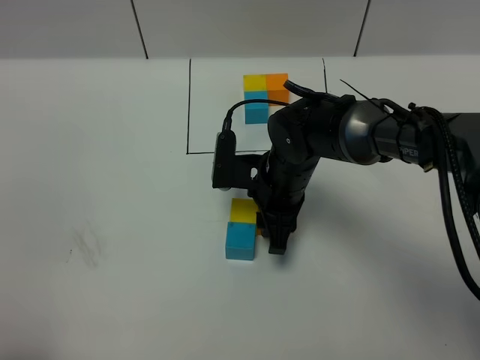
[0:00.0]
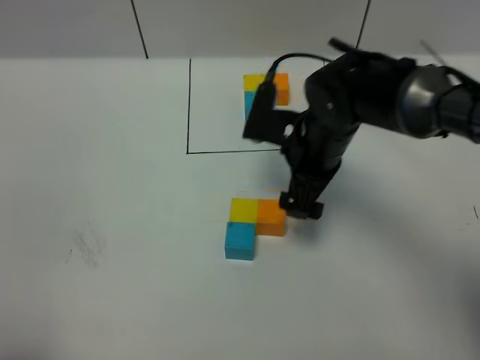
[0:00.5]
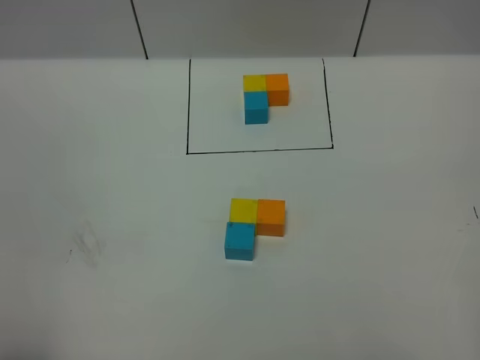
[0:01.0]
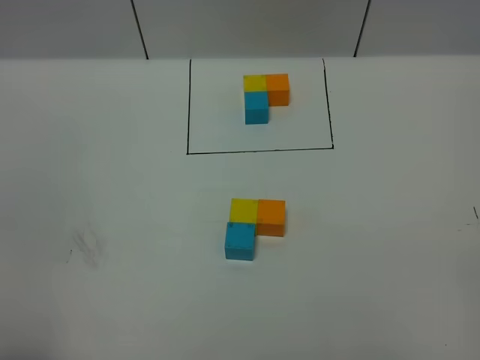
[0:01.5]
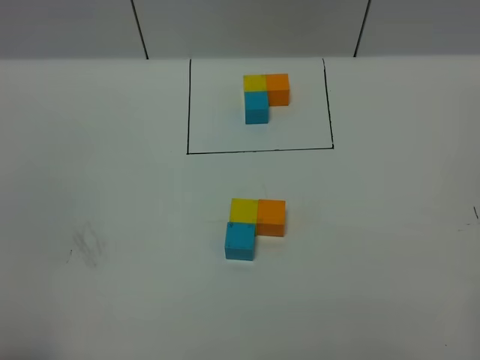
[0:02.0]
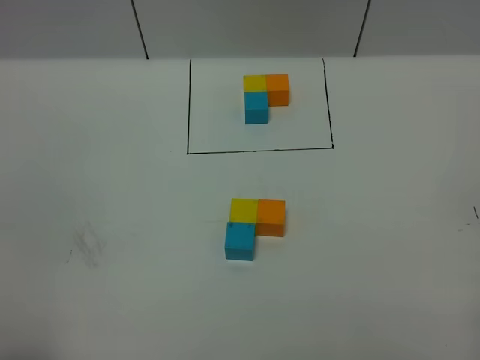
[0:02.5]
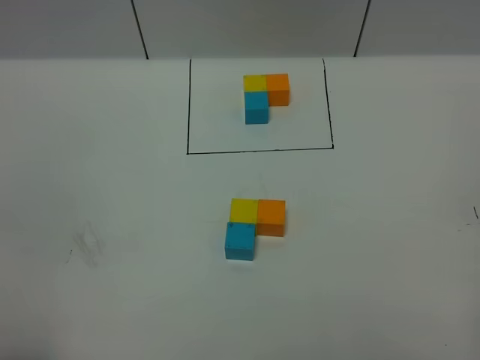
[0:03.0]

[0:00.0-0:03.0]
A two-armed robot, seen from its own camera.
Task of the whole recording: According to the building block template in front, assemble the scattered blocks together.
0:00.0 to 0:01.5: The right gripper heads to the right, backward and upward, covering some 50 cm, and opens its fingers.
